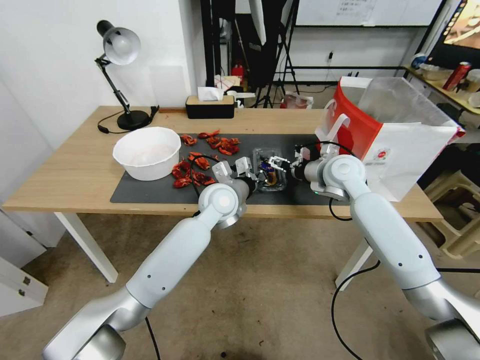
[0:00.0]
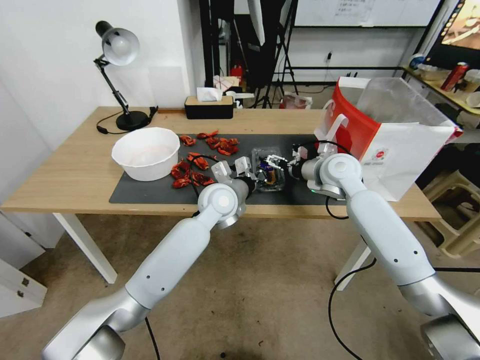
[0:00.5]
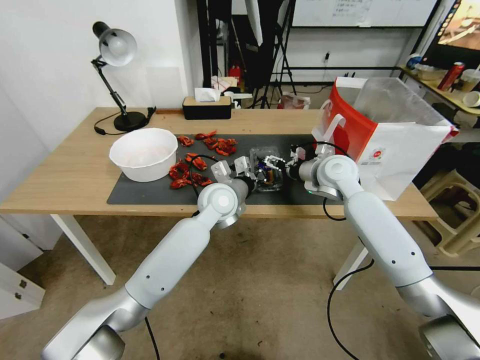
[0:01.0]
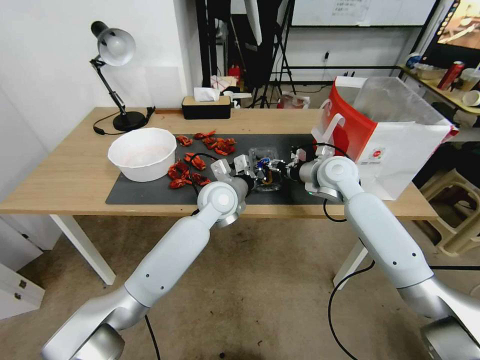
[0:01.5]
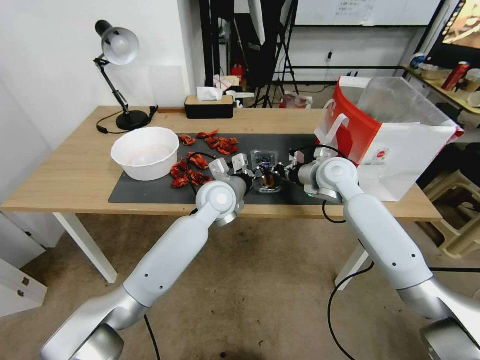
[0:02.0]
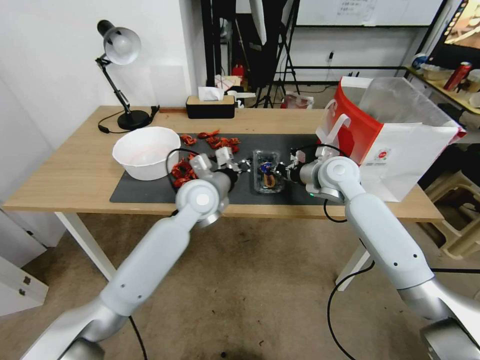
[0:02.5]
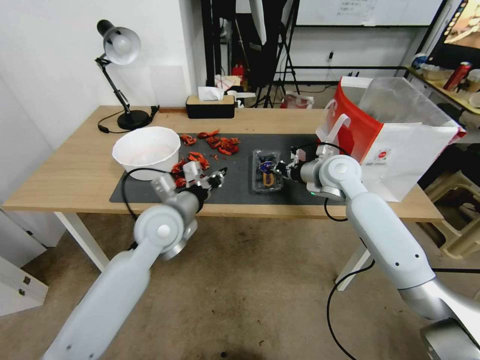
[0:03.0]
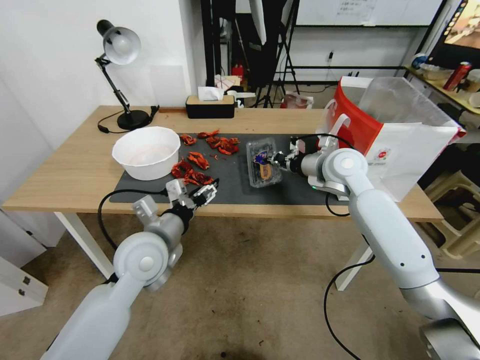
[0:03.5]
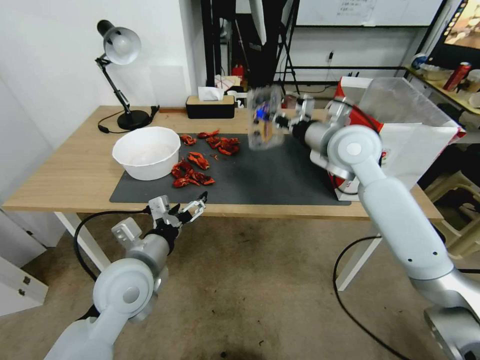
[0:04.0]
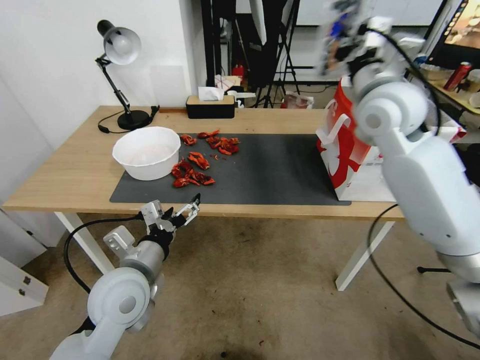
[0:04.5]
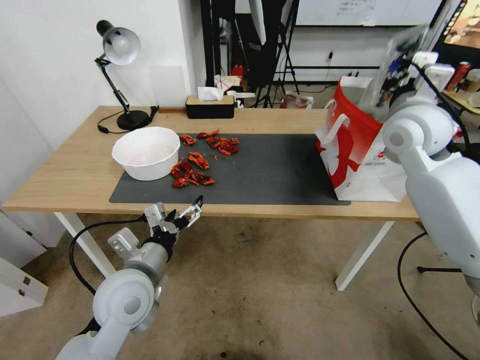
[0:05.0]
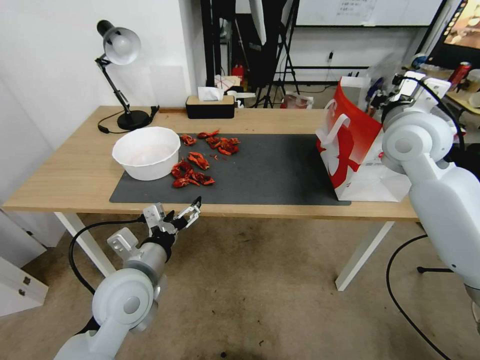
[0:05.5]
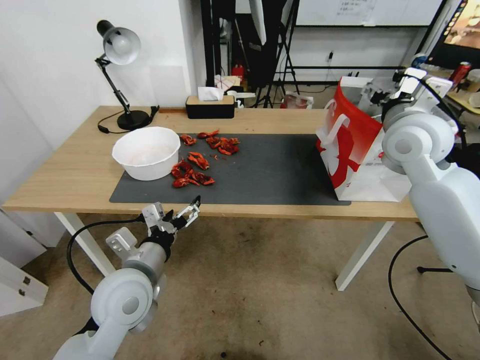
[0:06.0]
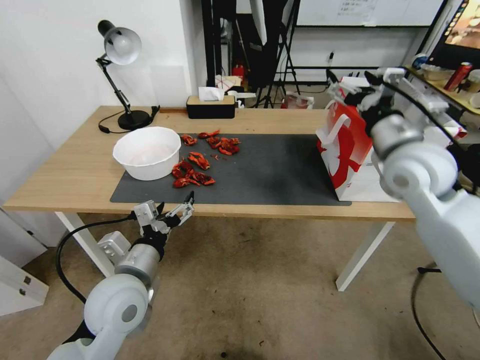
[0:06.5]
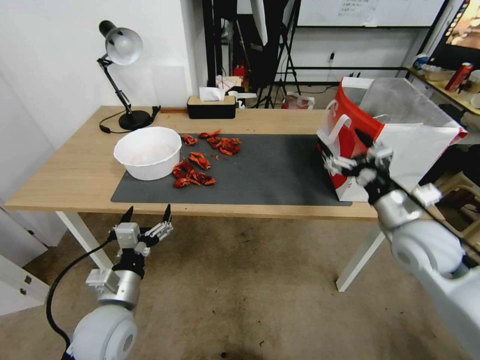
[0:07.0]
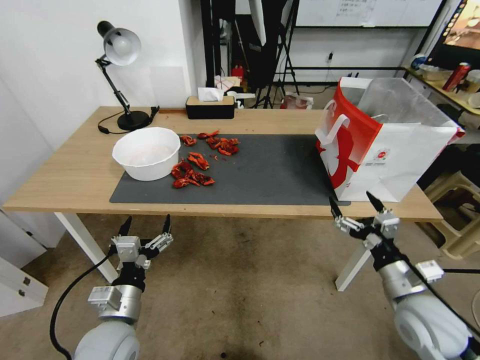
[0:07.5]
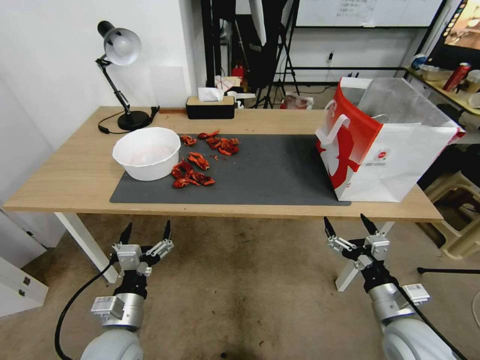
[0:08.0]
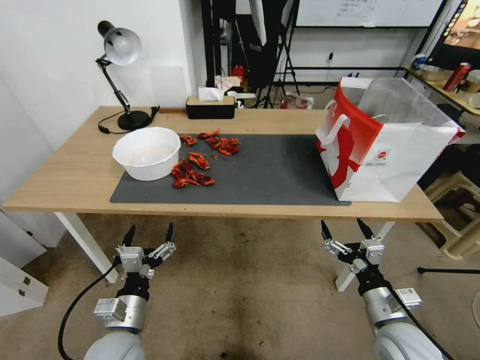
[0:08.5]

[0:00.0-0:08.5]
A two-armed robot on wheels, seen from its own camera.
Task of the whole recording: Close the takeout container lid, then place the container into the takeout bag.
0:00.0 to 0:02.0: The right gripper closes up.
0:02.0 to 0:04.0: The right gripper travels upward by about 10 cm. Meanwhile the left gripper moves backward and to the left, approximately 25 cm, and opens up.
0:04.0 to 0:06.5: The right gripper heads to the right and backward, covering approximately 10 cm, and opens up.
0:06.5 to 0:08.5: The right gripper shifts some 35 cm downward and backward. The left gripper travels downward and backward by approximately 15 cm.

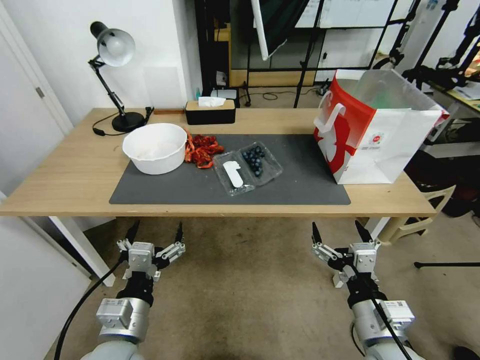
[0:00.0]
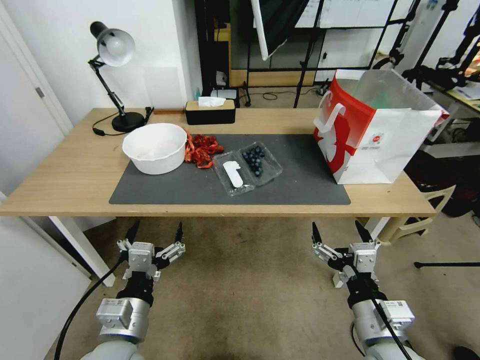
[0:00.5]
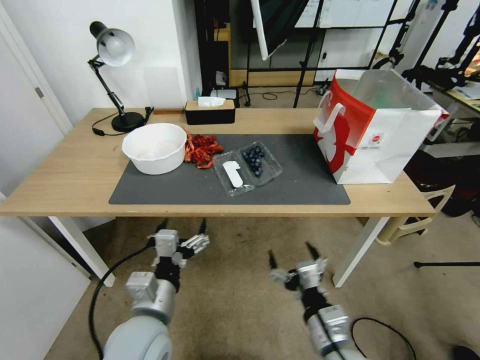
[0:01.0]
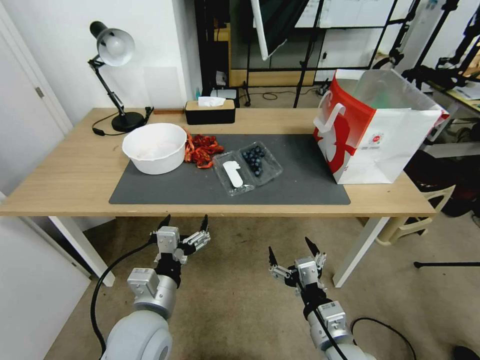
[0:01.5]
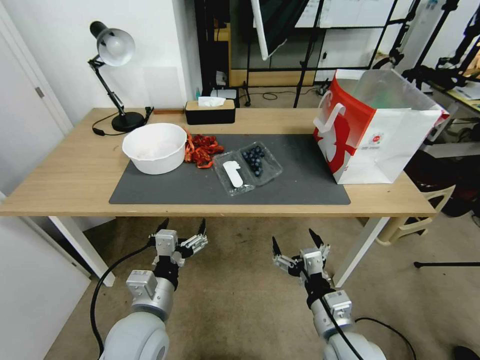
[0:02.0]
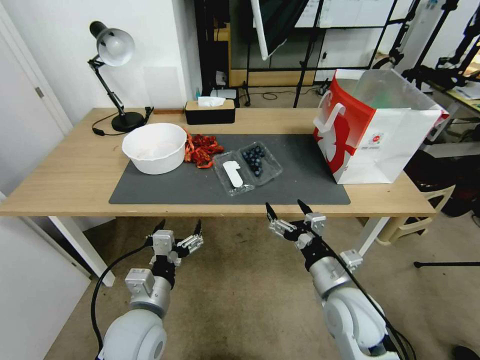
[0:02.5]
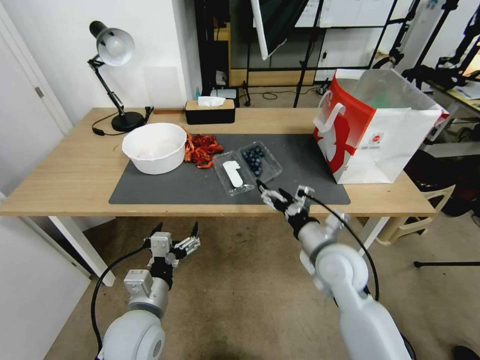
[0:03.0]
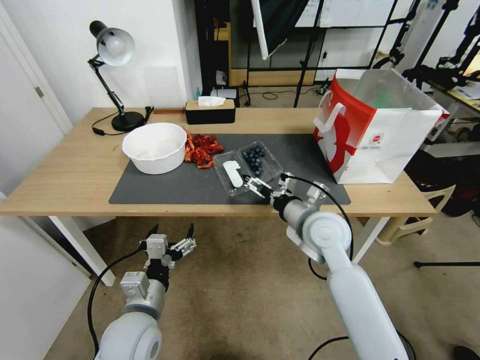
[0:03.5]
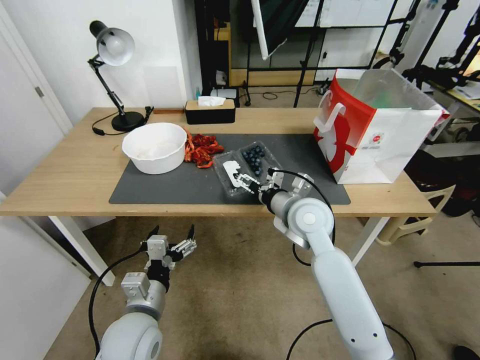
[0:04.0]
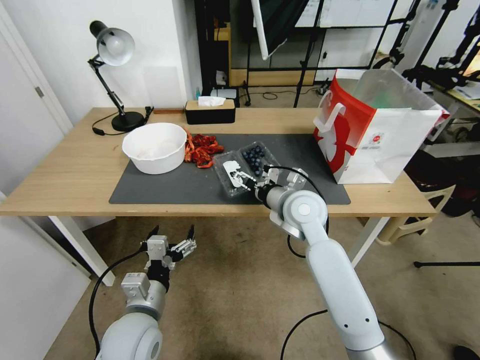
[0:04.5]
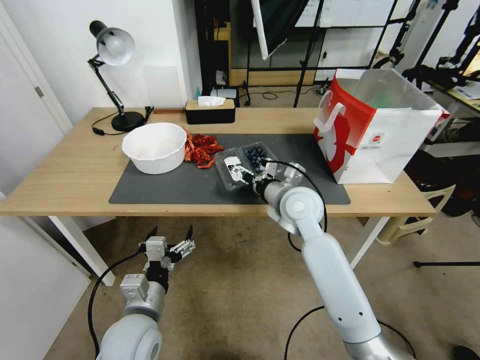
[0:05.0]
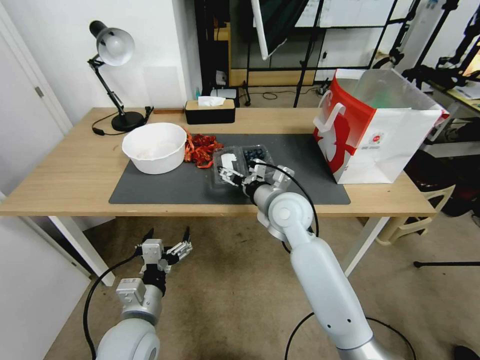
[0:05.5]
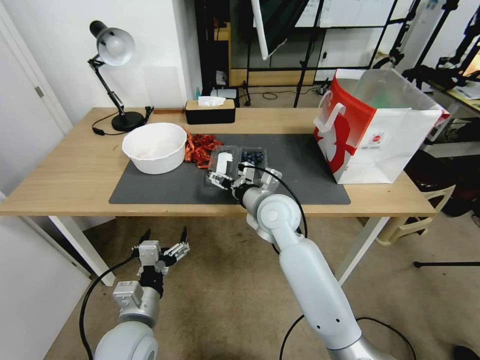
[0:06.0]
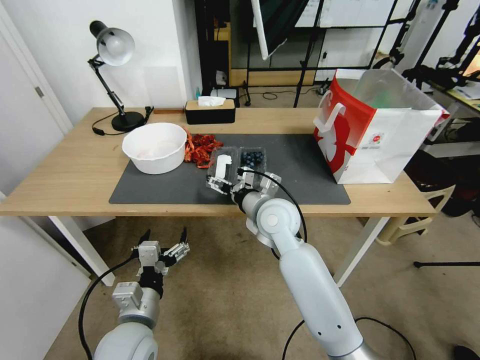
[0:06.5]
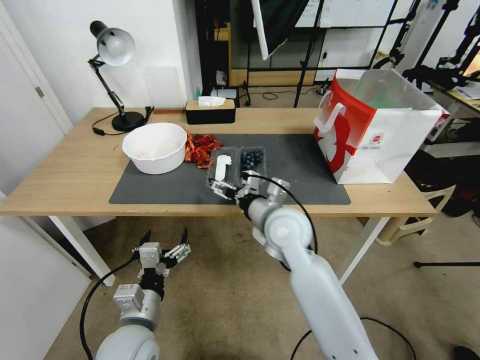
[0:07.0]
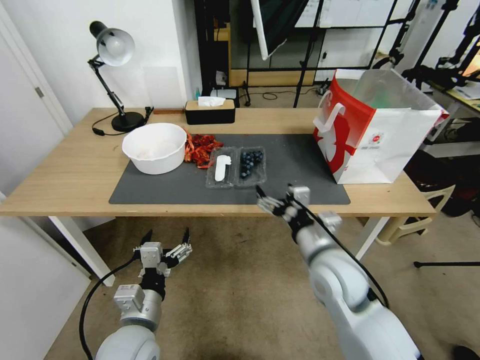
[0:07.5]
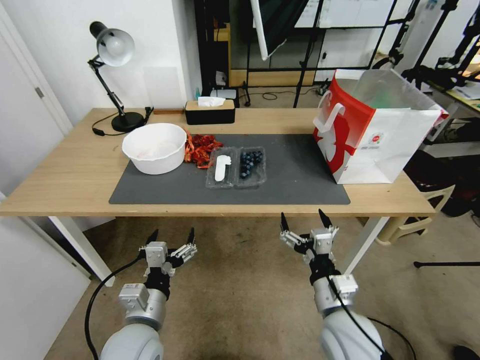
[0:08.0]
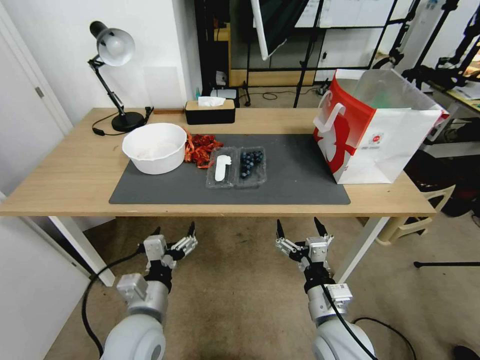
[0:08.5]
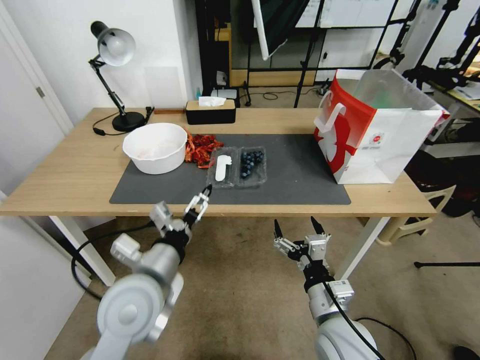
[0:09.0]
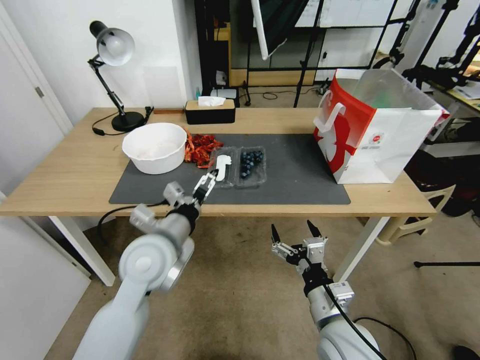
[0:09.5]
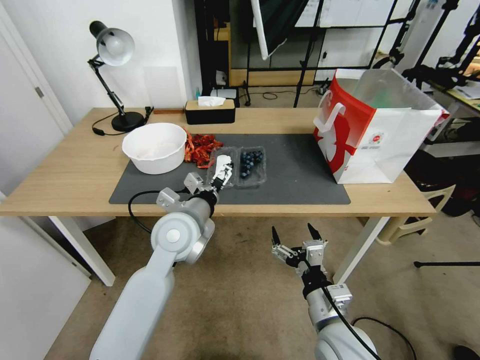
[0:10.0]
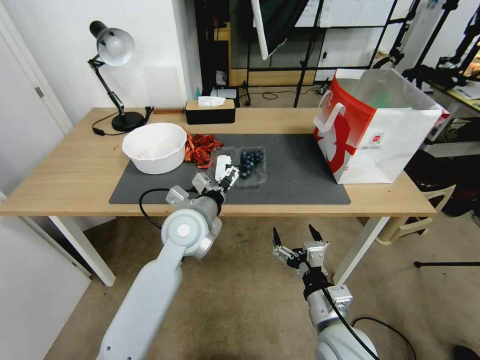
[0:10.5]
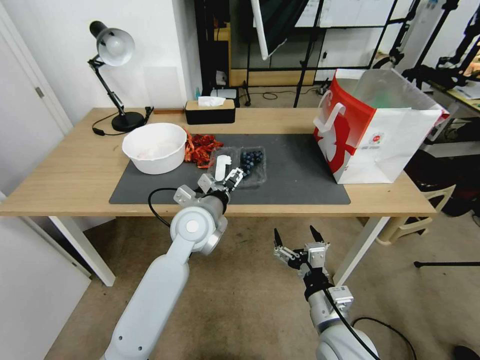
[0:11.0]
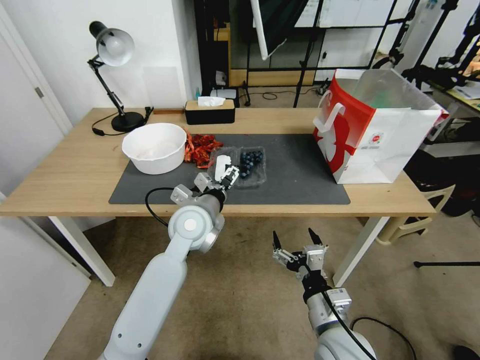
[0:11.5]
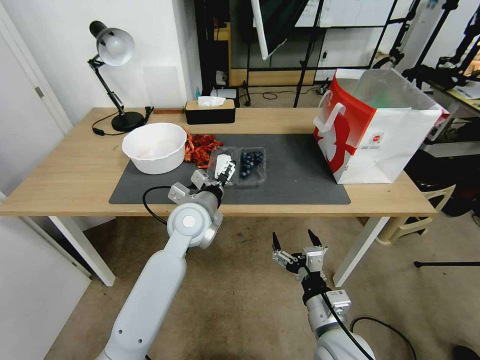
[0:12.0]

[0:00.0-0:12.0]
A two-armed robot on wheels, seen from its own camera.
Task of the whole recording: Close the takeout container lid, then place the container into the takeout bag.
0:02.0 to 0:04.0: The right gripper heads forward and upward, covering about 25 cm.
0:04.0 to 0:06.0: The right gripper moves to the left, about 5 cm.
0:06.0 to 0:08.0: The right gripper travels backward, to the right and downward by roughly 25 cm.
0:08.0 to 0:10.0: The left gripper is displaced forward and upward by approximately 20 cm.
0:10.0 to 0:12.0: There are only small adjustments of the grippers.

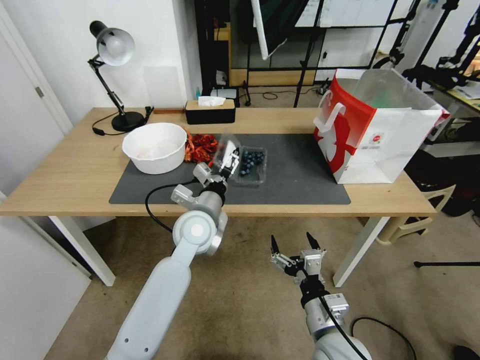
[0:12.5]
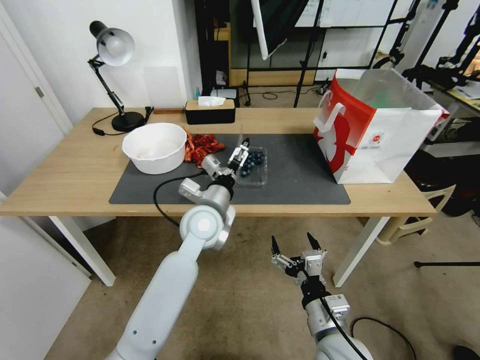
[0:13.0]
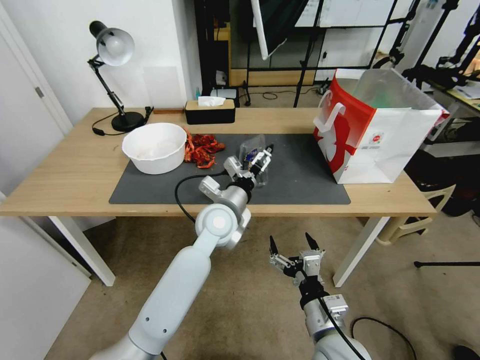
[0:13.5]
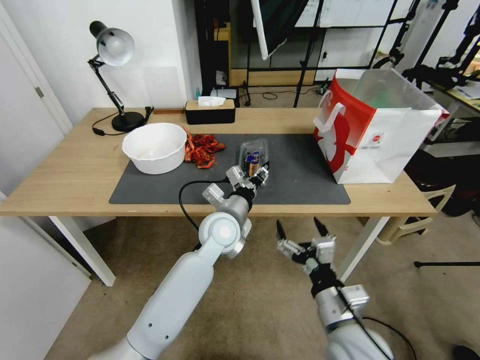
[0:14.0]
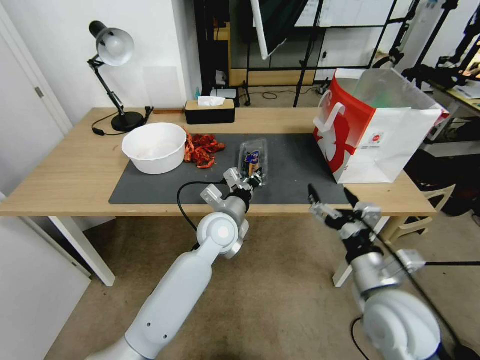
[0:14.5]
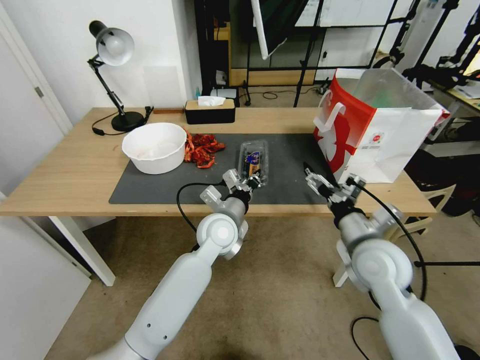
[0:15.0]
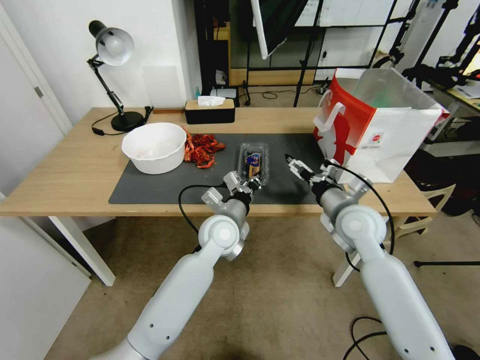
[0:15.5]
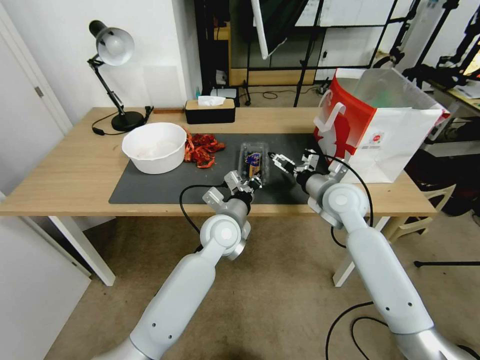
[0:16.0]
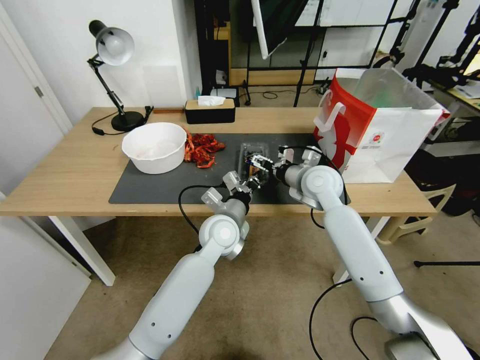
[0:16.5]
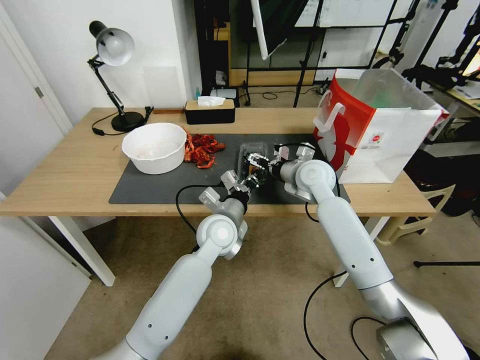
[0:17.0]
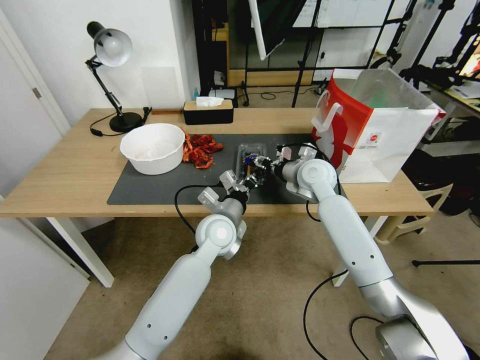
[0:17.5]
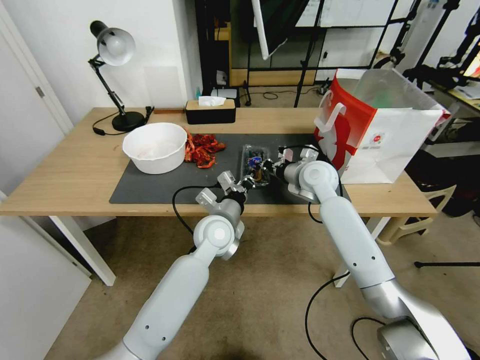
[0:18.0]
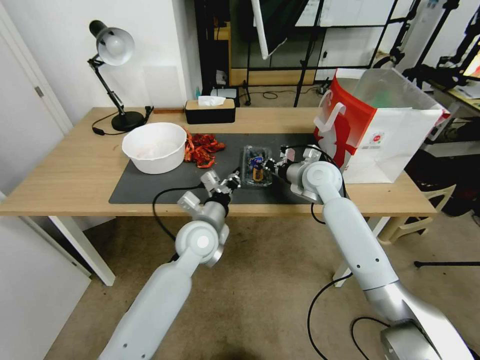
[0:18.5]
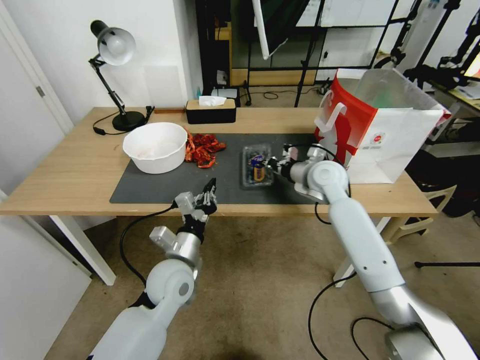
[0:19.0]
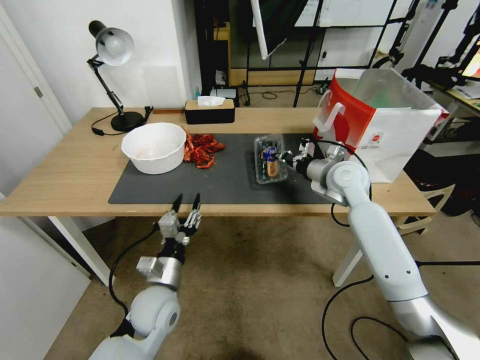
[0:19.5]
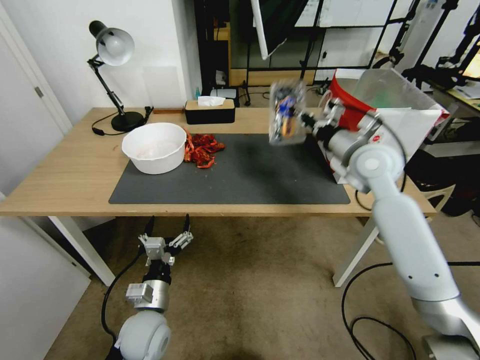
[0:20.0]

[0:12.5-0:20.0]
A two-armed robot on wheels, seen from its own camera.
Task of the whole recording: Close the takeout container lid, then place the container into the takeout bag.
0:12.5 to 0:14.5: The right gripper moves upward and to the right, some 15 cm. The left gripper moves approximately 5 cm, and closes its fingers.
0:14.5 to 0:16.5: The right gripper goes about 30 cm forward.
0:16.5 to 0:18.0: The right gripper closes.
0:18.0 to 0:20.0: The left gripper goes some 25 cm backward, to the left and downward, and opens up; the right gripper moves upward, to the right and backward, roughly 15 cm.
